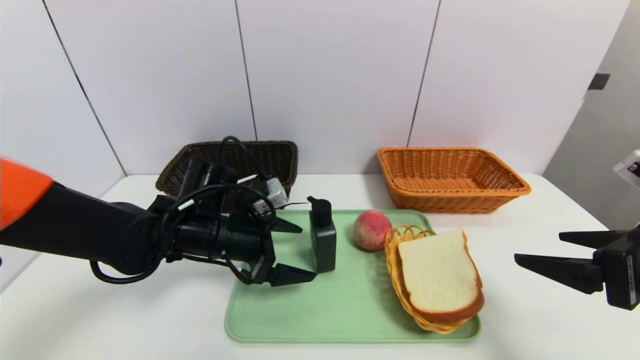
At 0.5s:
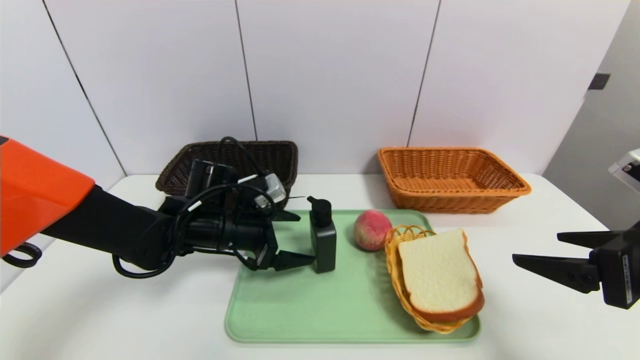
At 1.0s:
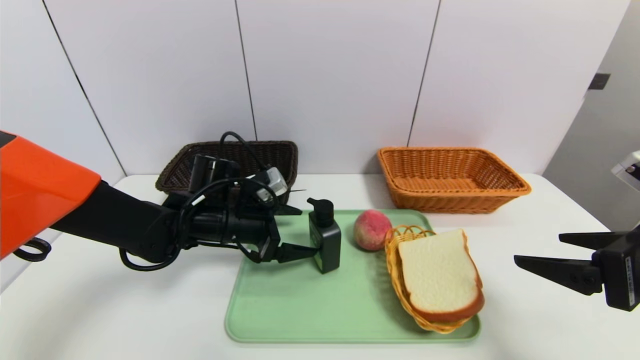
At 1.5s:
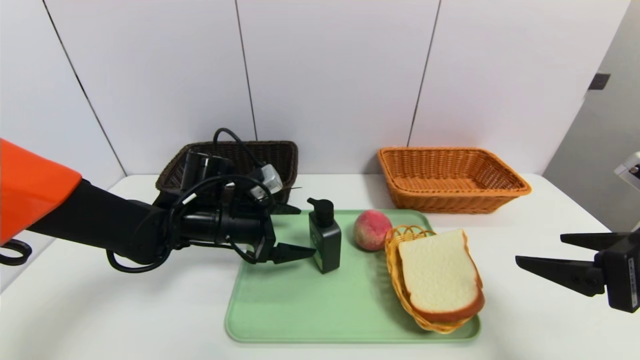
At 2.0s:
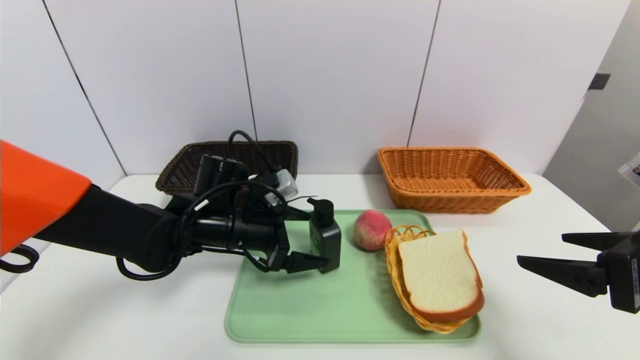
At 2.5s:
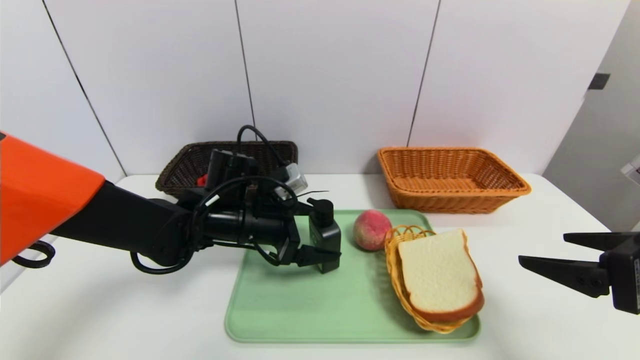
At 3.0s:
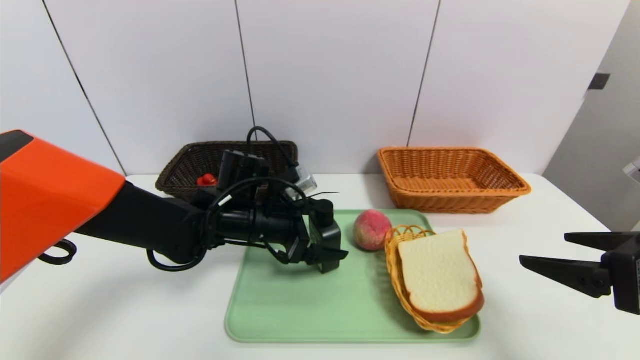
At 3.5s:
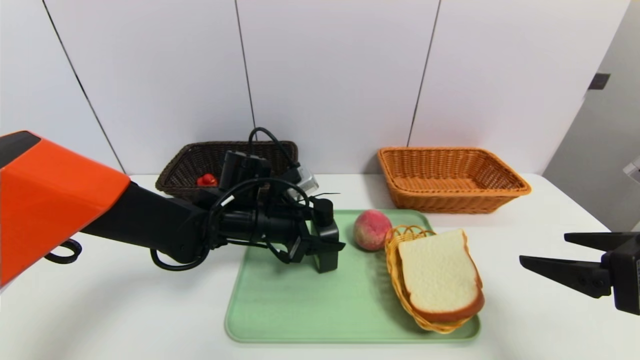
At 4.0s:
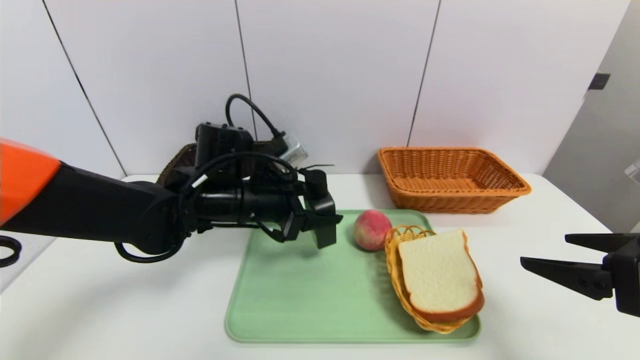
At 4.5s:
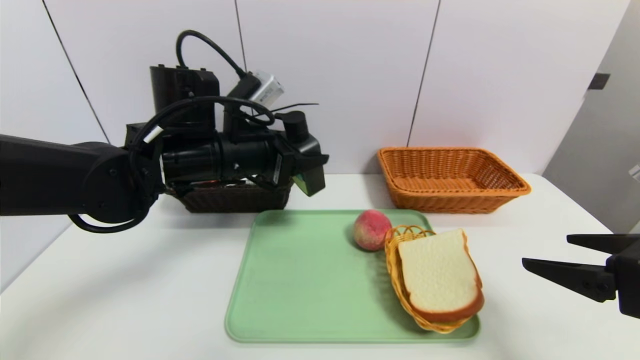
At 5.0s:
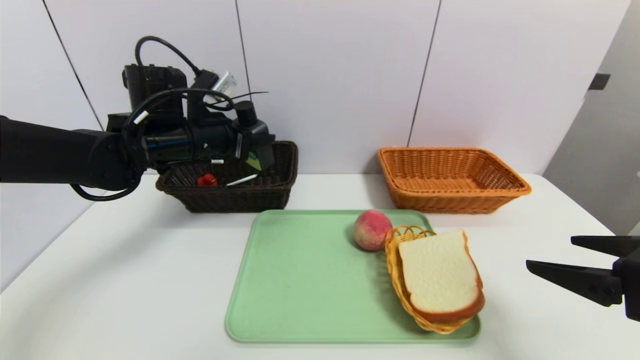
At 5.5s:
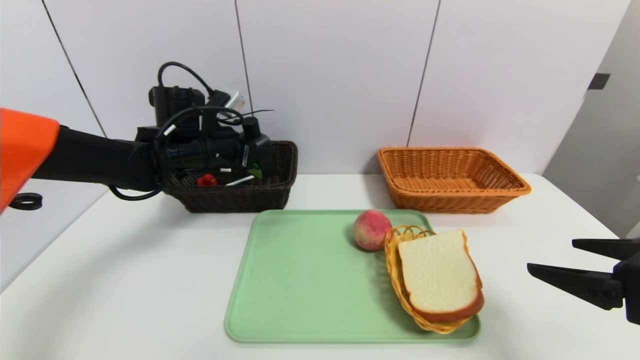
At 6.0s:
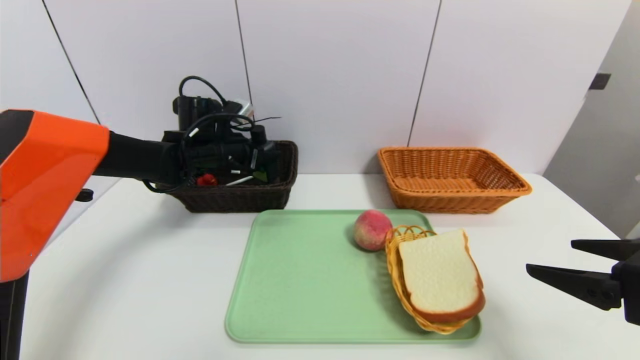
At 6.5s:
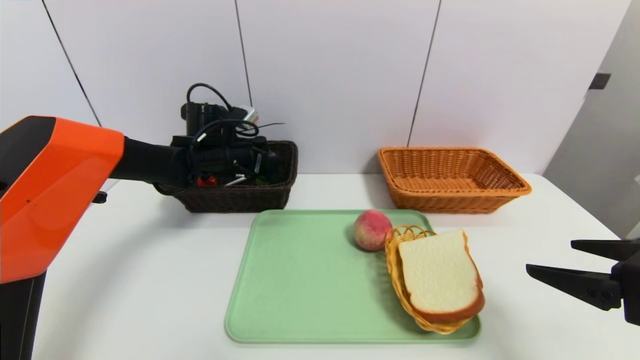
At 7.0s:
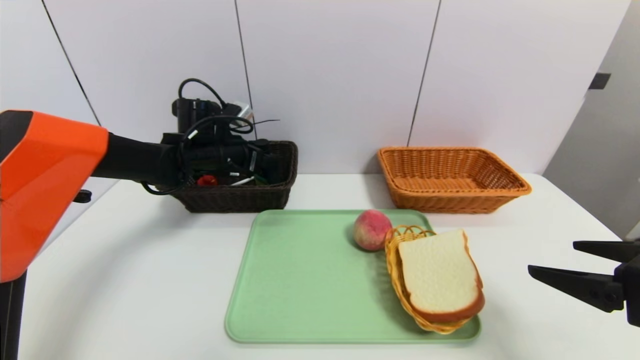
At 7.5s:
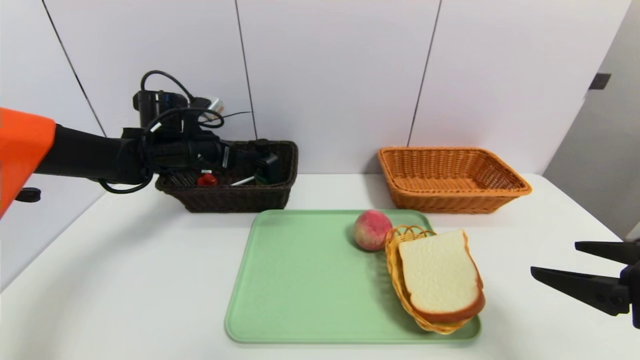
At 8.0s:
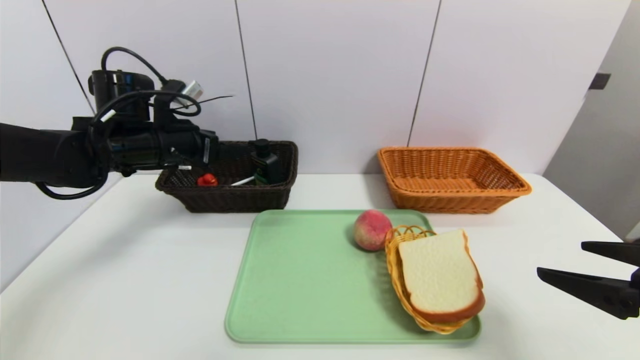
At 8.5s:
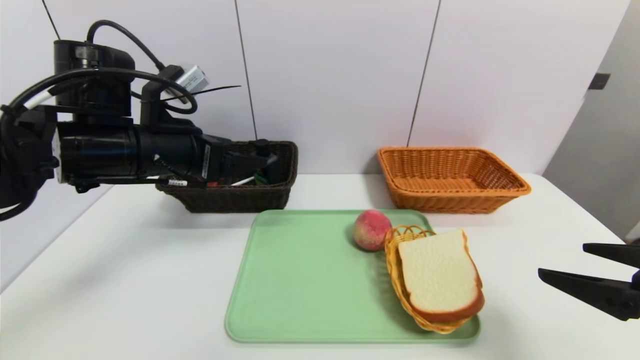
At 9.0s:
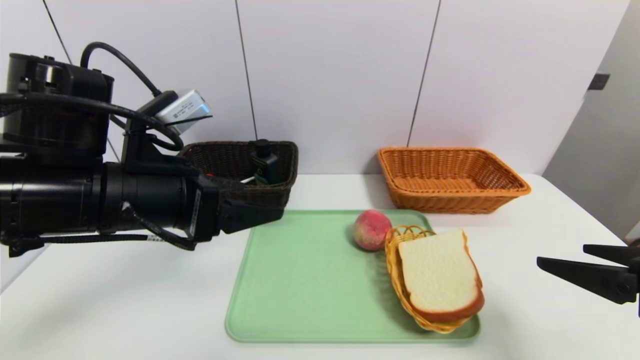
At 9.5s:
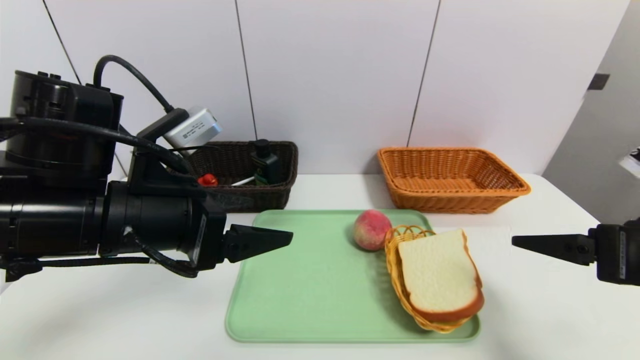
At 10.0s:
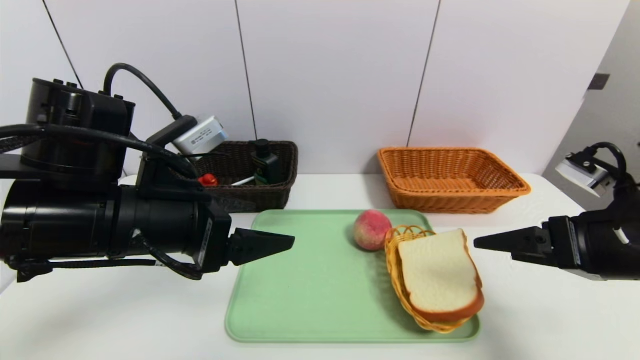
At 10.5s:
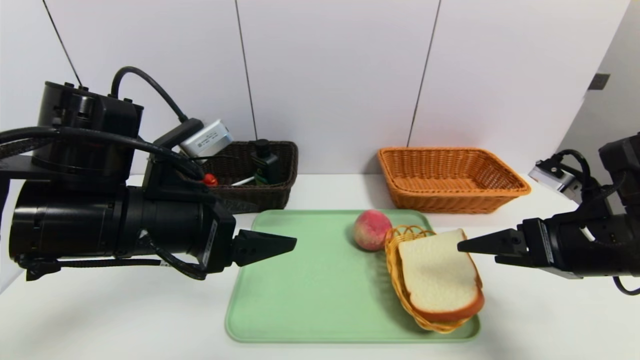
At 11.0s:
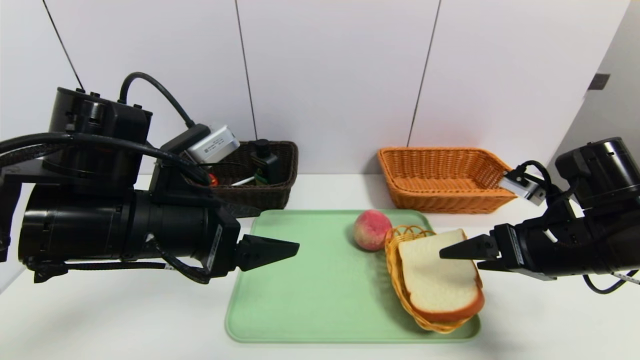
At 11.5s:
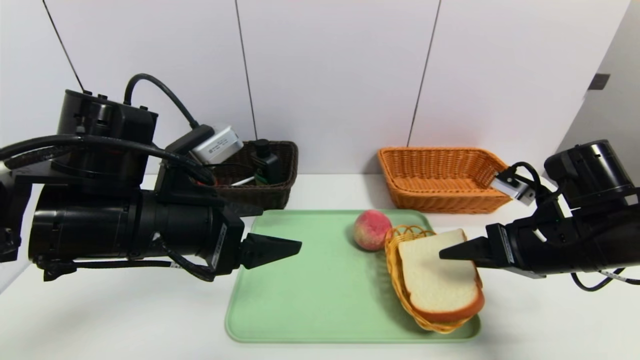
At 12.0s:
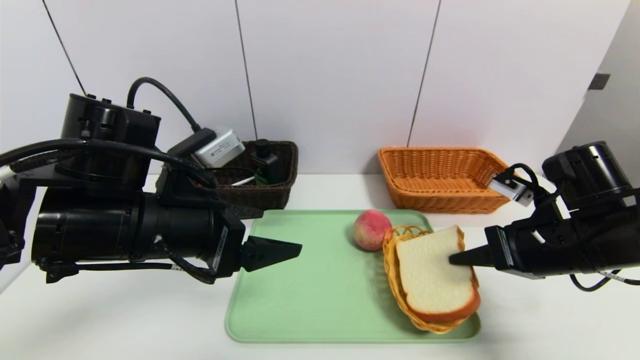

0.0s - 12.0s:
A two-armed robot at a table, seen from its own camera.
Task of the whole recording: place the food in the right basket with the right gripper, and place the non food items in the left basket with the left gripper.
Step, 0.0s - 7.0s: Grasp the hard cleanser and put it in the left basket.
0.0s - 2.0s: The grippers make only small movements.
2.0s - 4.0s: The left gripper changes place by some 5 cm, and closes.
4.0s - 6.0s: The left gripper heads forward and to the left, covering roughly 15 cm.
6.0s - 8.0s: The left gripper moves backward and to the left, about 10 cm.
8.0s - 10.0s: The right gripper heads forward, covering about 5 cm. The left gripper heads backward and to the right, covering approximately 20 cm.
10.0s - 12.0s: The right gripper changes place by approximately 5 cm, and closes up.

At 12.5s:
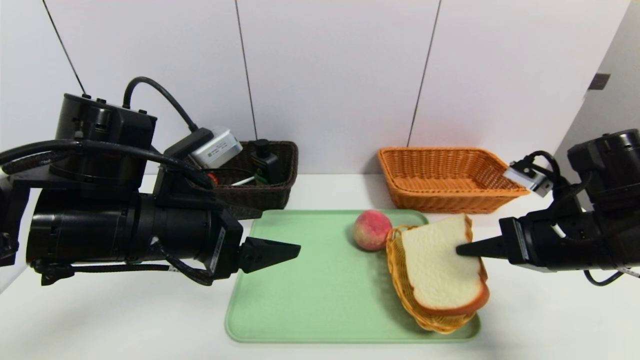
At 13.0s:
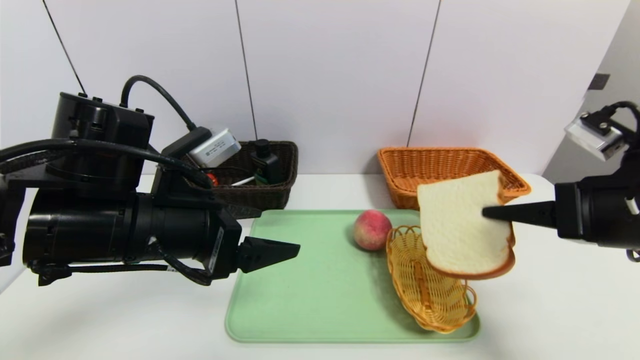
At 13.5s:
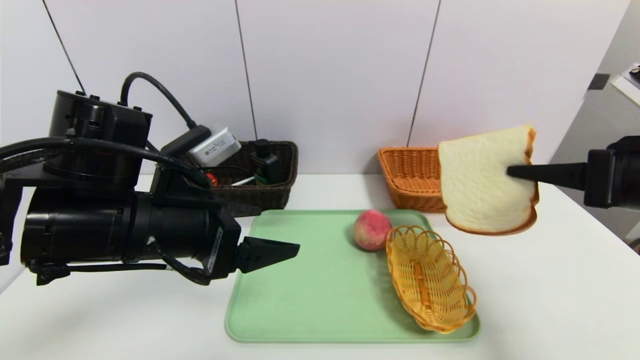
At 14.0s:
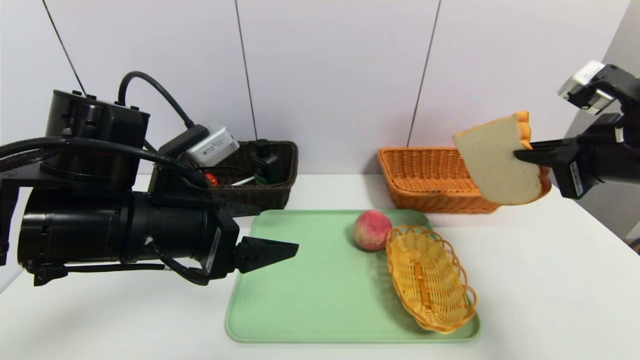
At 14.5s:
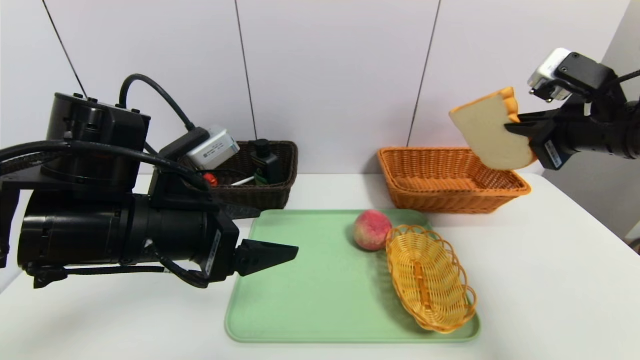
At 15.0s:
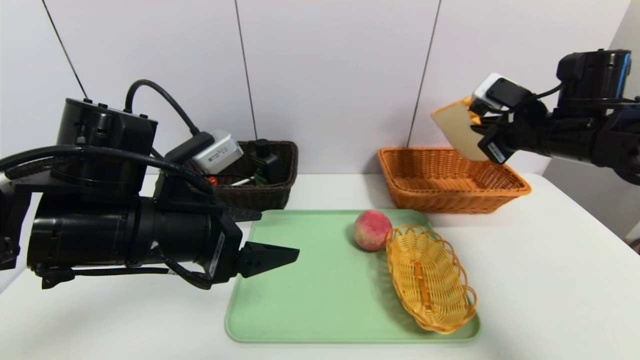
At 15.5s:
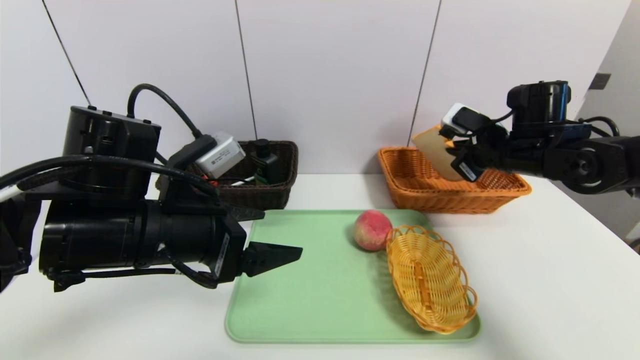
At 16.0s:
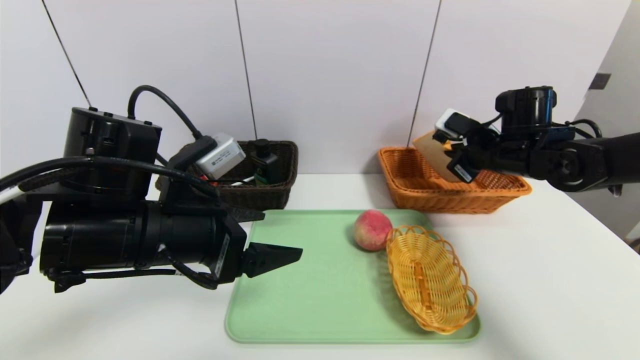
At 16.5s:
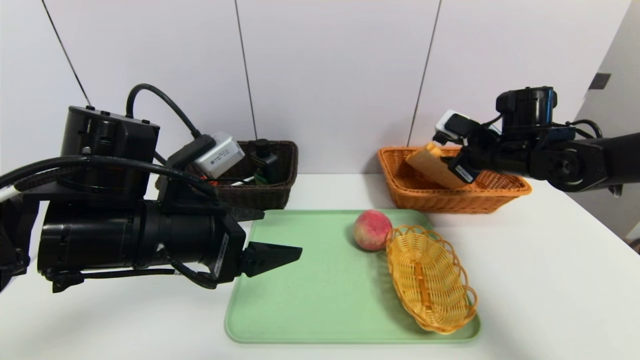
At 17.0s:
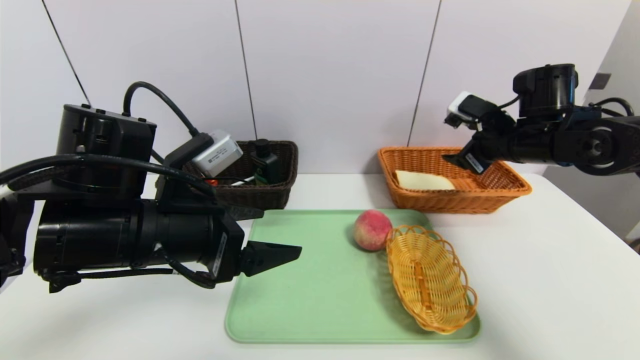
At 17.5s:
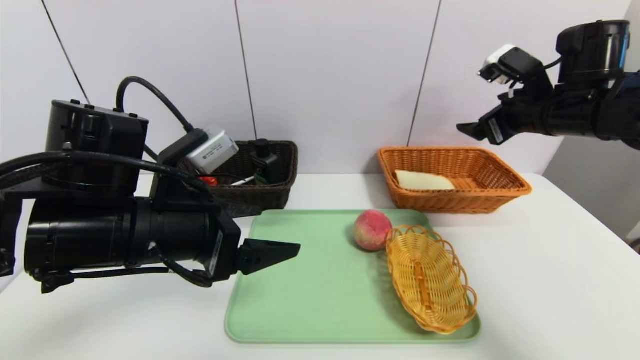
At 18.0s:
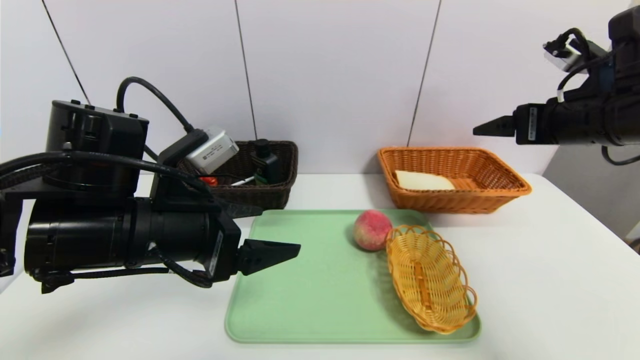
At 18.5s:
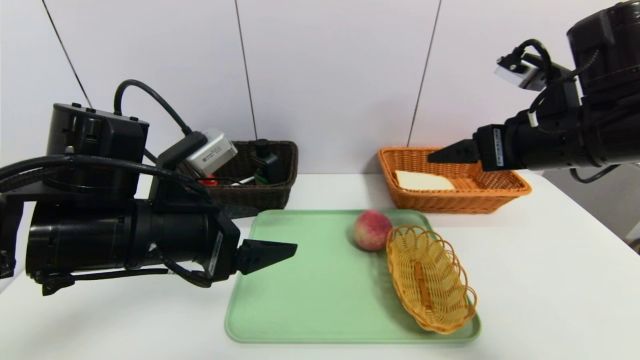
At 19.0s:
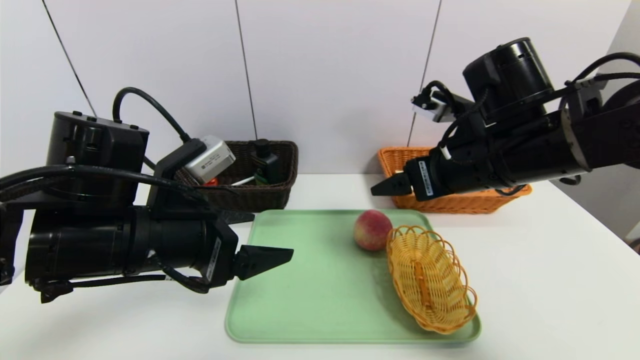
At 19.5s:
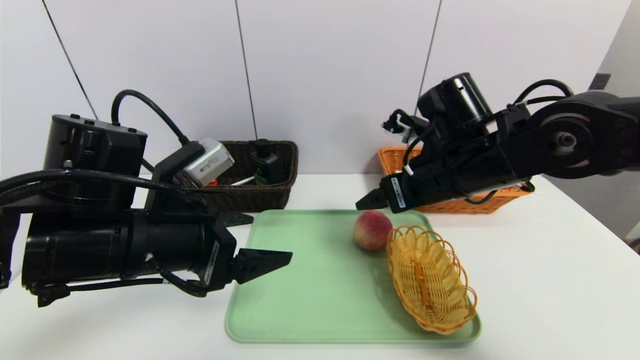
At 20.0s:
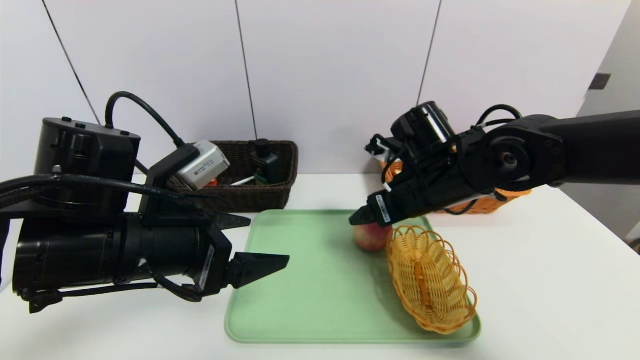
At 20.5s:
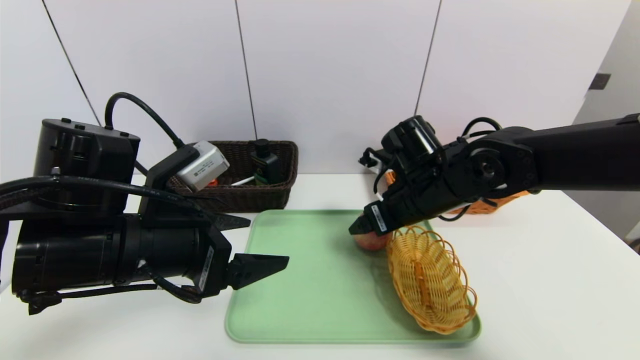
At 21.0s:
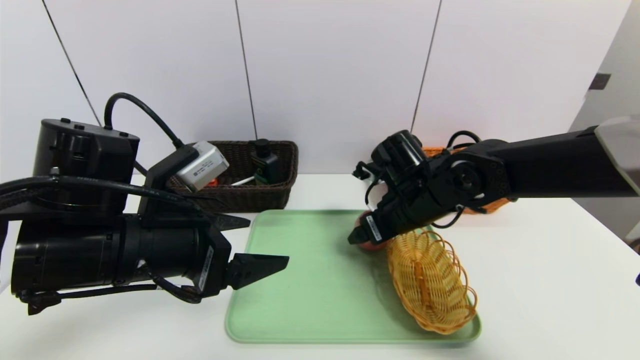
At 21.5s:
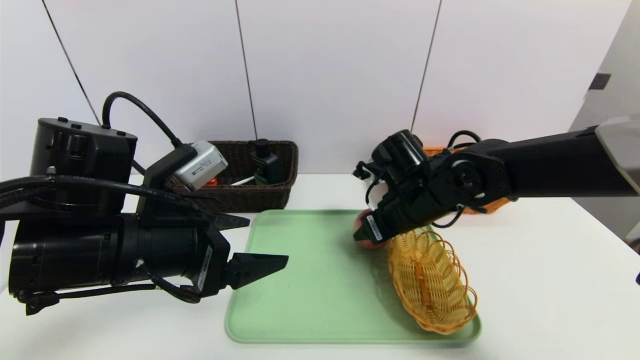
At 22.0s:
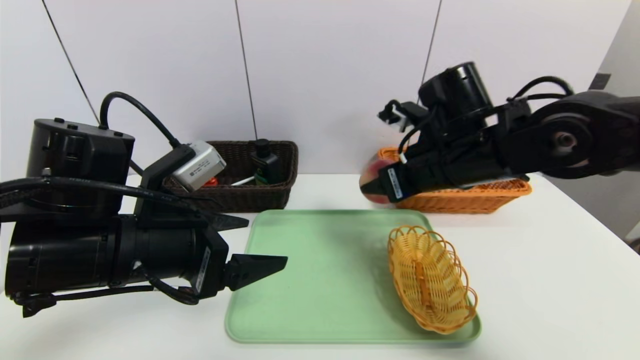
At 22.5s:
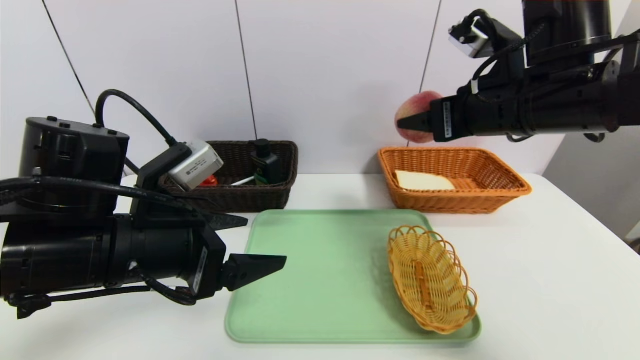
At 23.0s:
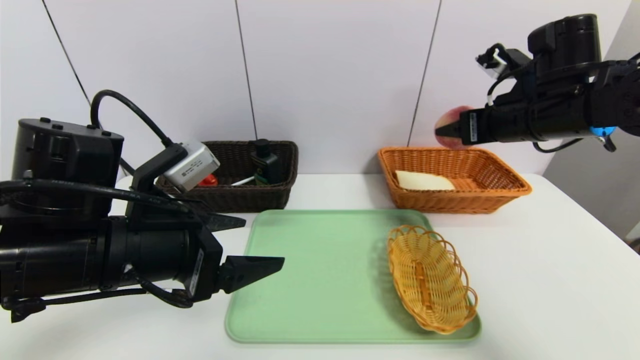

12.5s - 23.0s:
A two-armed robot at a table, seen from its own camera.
Task of the whole recording: place the food in the right basket with the right gripper, and place the non food items in the left basket with the left gripper.
Step, 12.5s - 17.0s: Grasp the bread slice and put it in the right basket.
12.5s - 14.5s: The right gripper is displaced upward and forward by approximately 10 cm.
14.5s - 16.5s: The right gripper moves forward and downward, some 15 cm, and opens up.
16.5s - 19.0s: The right gripper is displaced backward, to the left and upward by about 15 cm, and opens its fingers.
19.0s - 21.0s: The right gripper goes about 10 cm downward and forward.
21.0s - 23.0s: The right gripper travels to the right and upward by about 20 cm.
